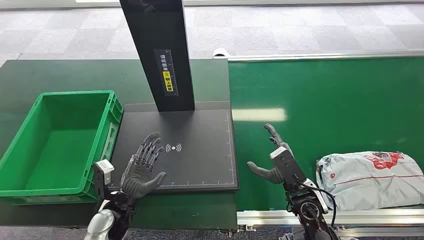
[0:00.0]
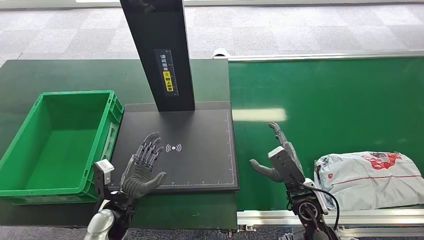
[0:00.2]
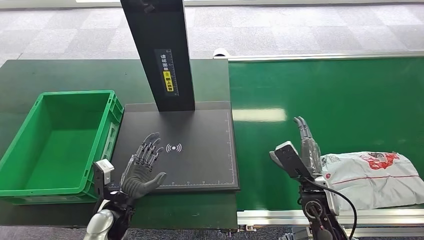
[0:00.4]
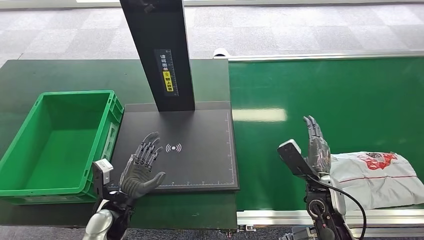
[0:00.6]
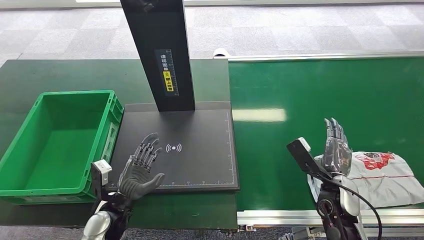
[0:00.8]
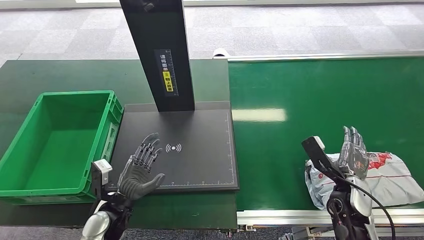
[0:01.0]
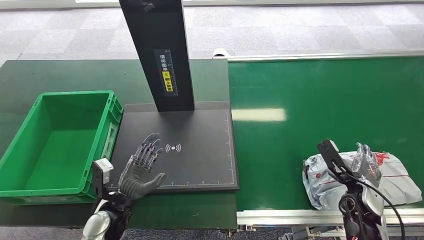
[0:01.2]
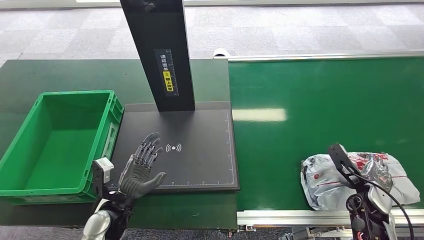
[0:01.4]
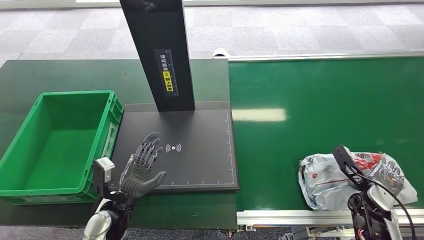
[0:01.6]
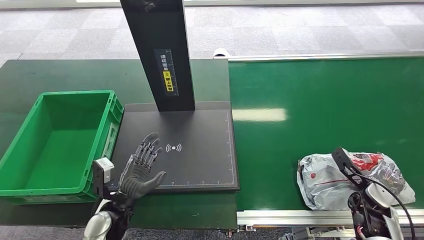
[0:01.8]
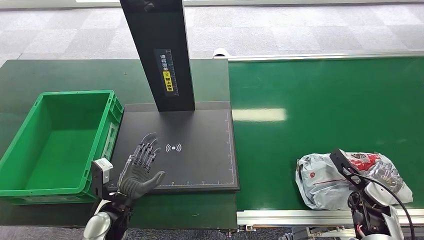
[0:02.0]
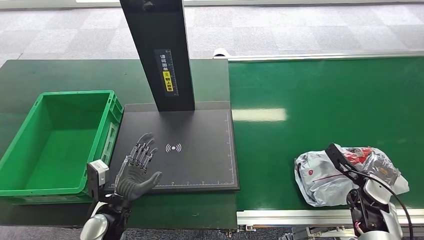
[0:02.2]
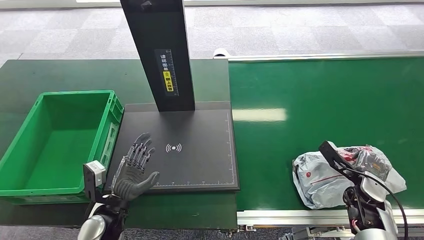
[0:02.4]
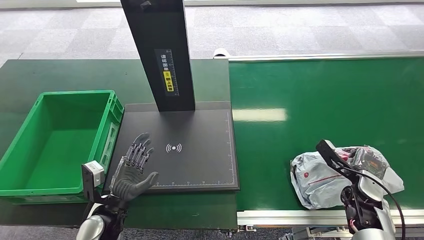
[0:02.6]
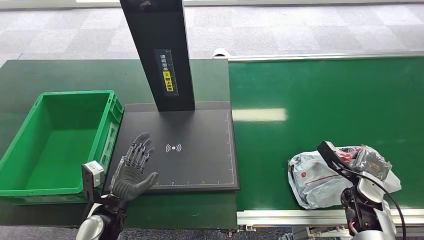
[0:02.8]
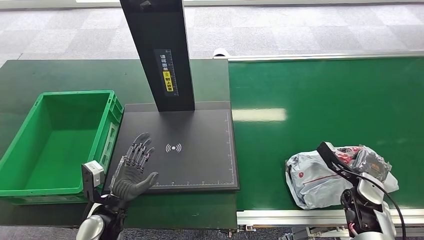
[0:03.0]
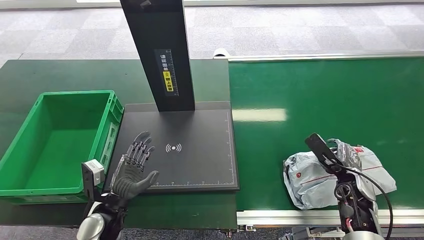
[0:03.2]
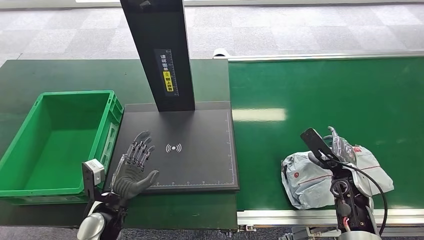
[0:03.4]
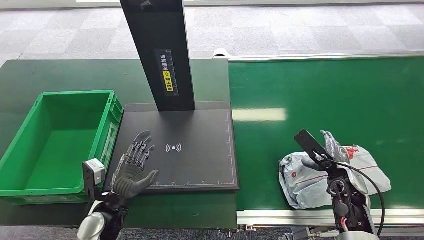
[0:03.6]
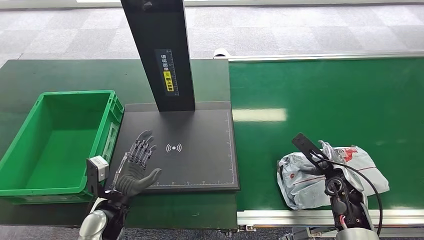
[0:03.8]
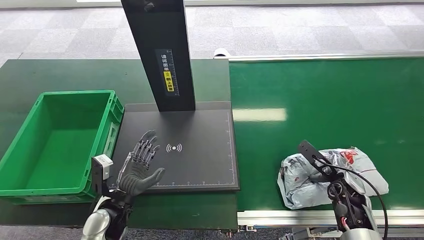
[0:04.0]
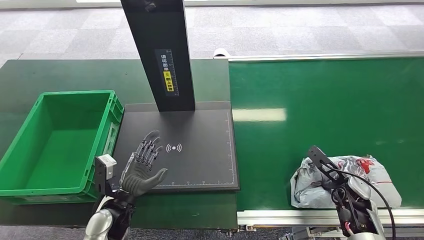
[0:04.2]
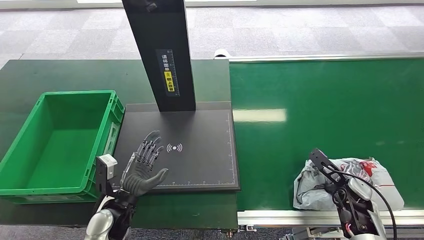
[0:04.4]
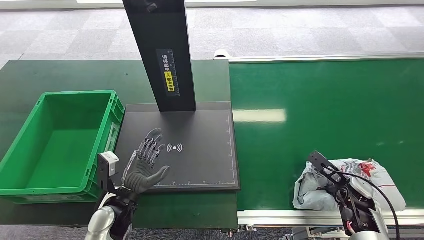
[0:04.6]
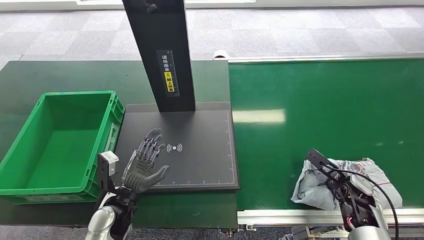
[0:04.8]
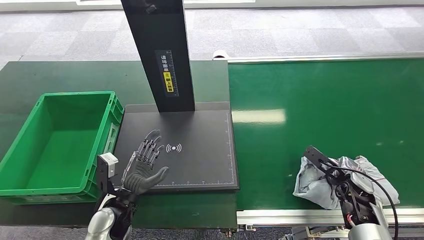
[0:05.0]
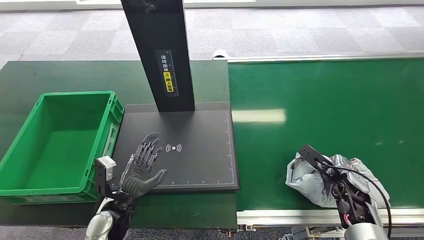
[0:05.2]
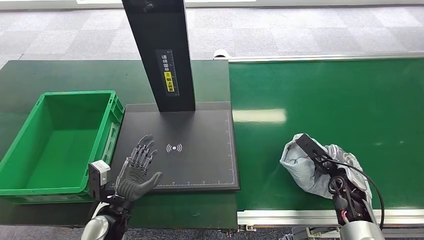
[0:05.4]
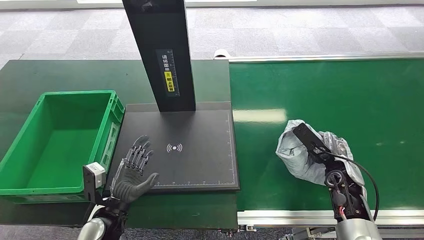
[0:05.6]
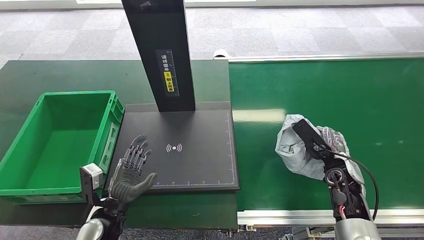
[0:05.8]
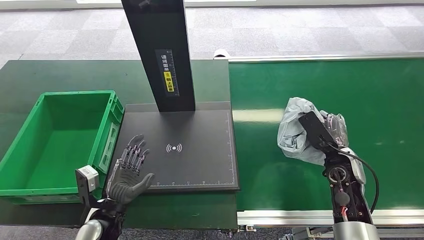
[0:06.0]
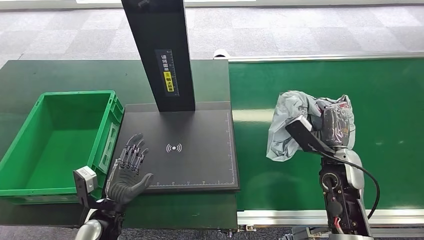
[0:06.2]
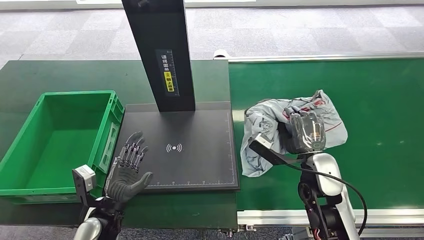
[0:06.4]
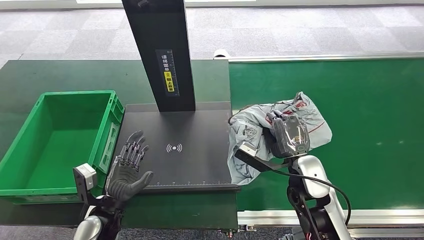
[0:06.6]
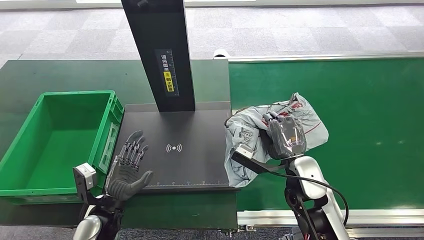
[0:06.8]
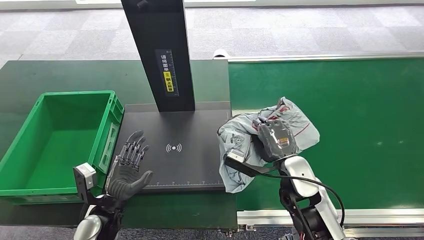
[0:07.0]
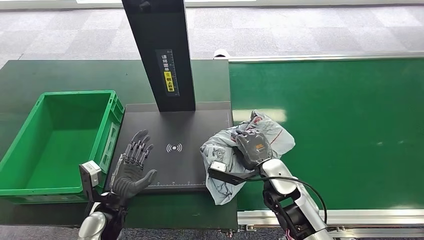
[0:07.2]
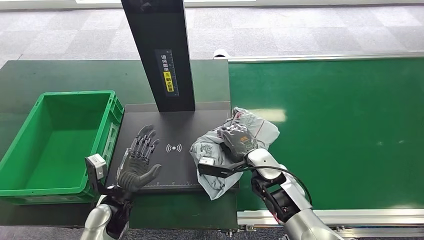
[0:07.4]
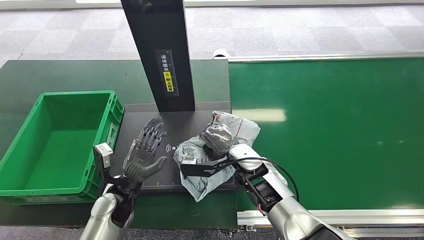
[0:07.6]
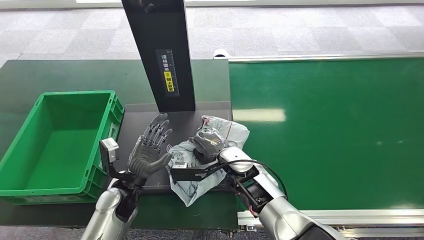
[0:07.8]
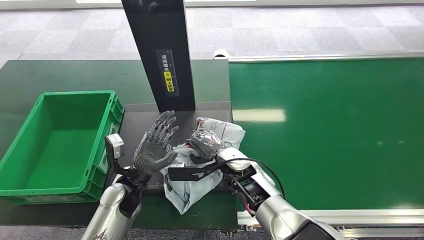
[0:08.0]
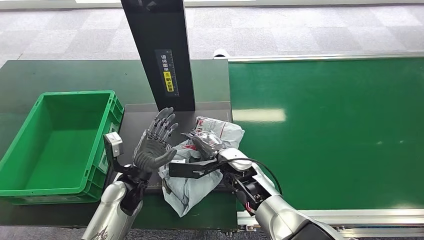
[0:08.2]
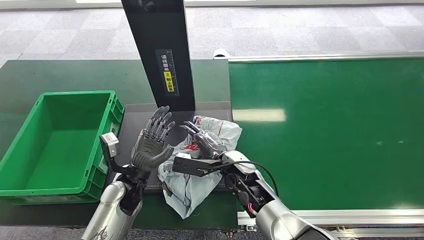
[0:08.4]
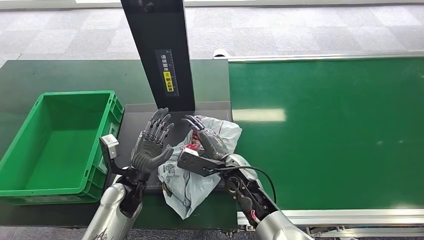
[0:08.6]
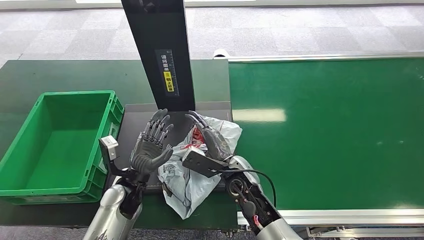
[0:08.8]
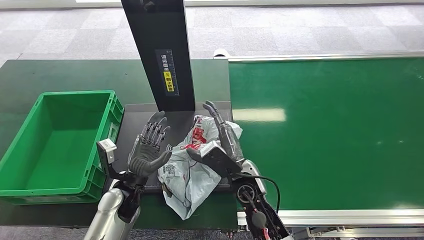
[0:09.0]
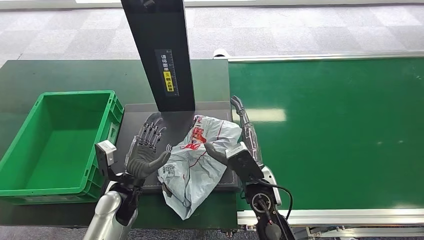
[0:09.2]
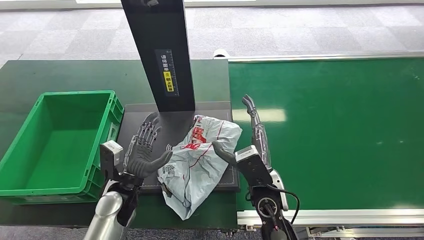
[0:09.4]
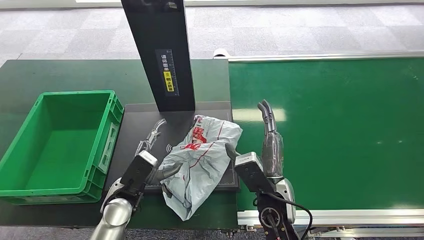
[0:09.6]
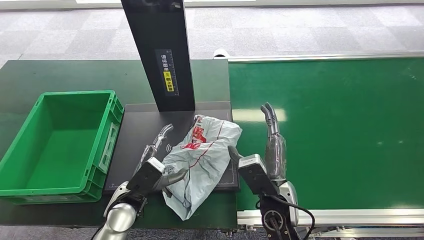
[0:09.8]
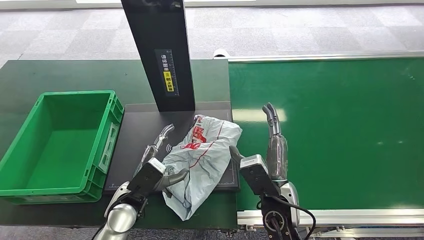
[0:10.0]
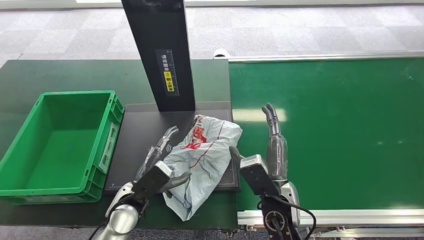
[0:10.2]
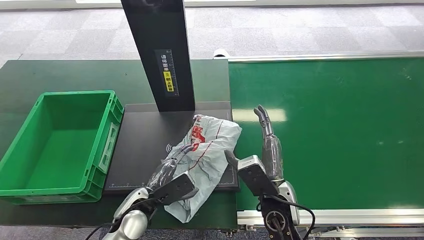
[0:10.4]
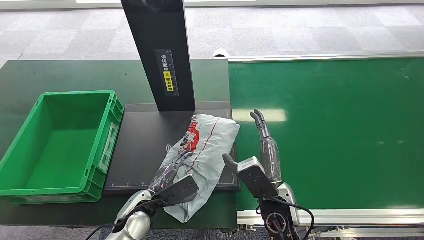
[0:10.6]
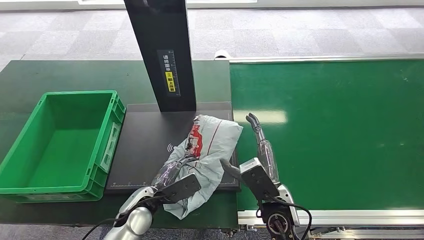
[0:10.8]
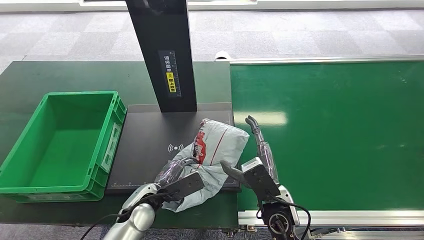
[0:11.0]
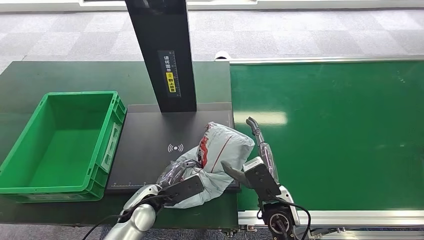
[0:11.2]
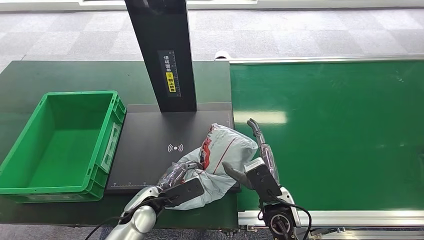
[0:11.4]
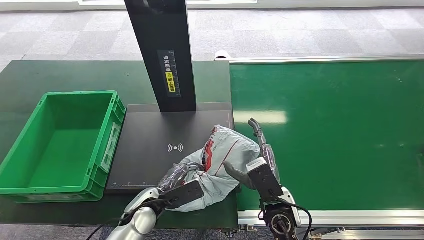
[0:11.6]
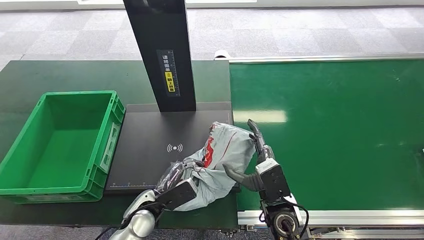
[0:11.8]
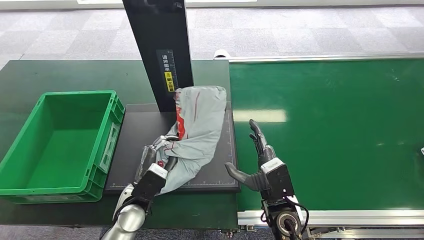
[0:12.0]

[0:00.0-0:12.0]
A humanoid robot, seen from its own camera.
Step, 0:00.0 to 0:05.8: Pick up the package from the conveyor belt.
Step, 0:06.2 to 0:08.8: Place the package onto the inbound machine.
0:01.6 to 0:03.0: The hands make only small movements.
0:04.4 to 0:06.0: The right hand shifts about 10 cm upward and to the left.
0:06.0 to 0:07.6: The right hand shifts about 25 cm to the left; the left hand moves forward, roughly 5 cm.
0:07.6 to 0:09.0: The right hand is displaced backward by roughly 5 cm.
0:09.0 to 0:10.4: The right hand heads to the right, covering about 5 cm.

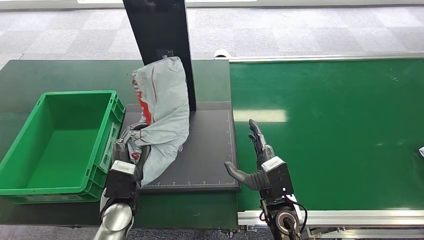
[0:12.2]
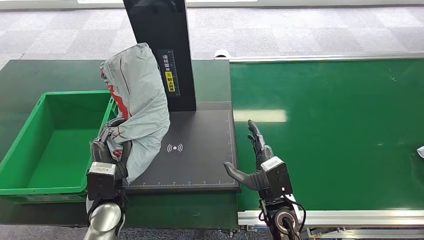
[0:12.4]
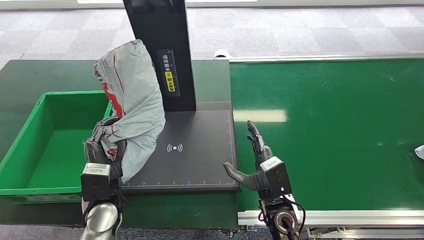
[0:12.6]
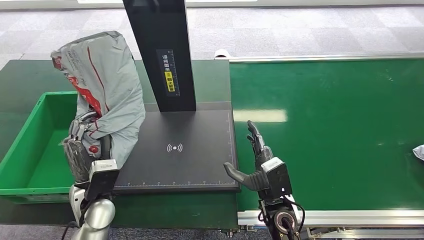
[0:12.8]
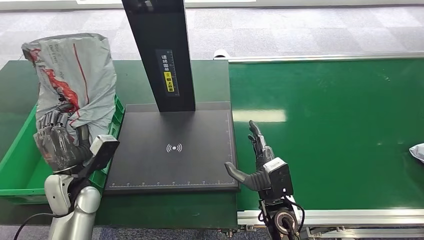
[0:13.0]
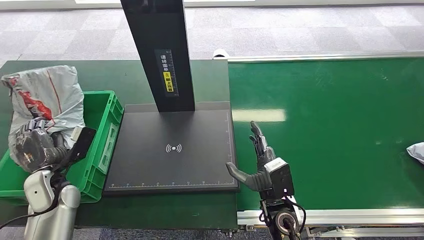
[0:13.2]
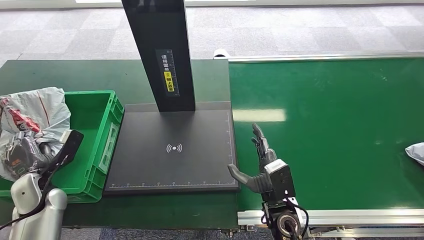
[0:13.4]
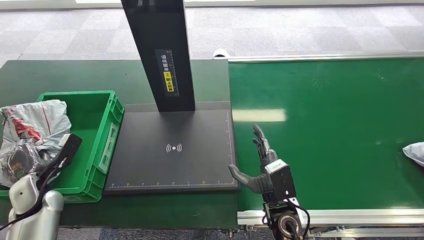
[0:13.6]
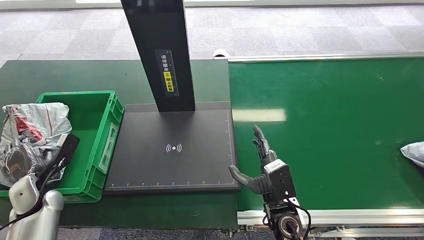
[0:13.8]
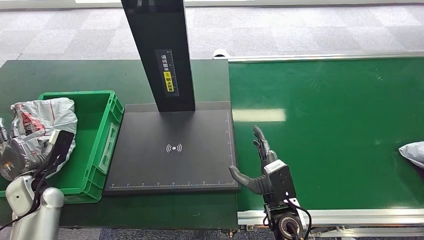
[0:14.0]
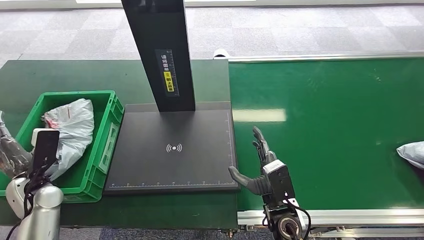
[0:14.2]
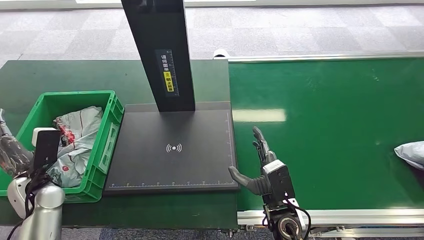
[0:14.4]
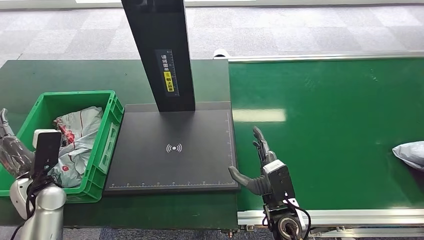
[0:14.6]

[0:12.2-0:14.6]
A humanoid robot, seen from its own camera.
Step, 0:12.6 to 0:14.6: Place the package into the parcel locker.

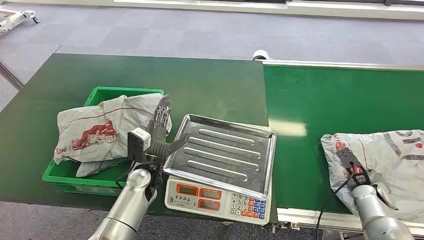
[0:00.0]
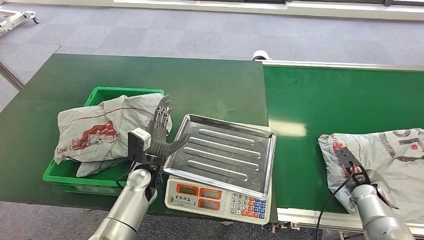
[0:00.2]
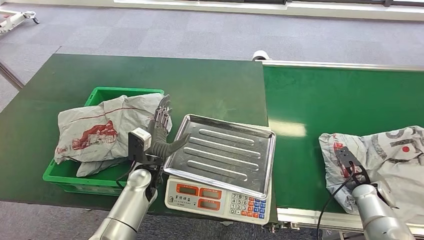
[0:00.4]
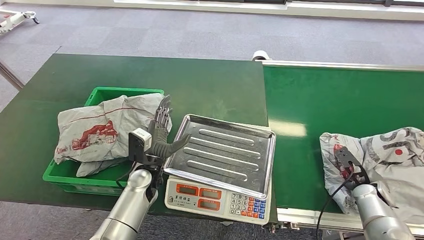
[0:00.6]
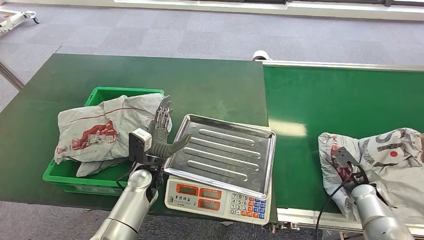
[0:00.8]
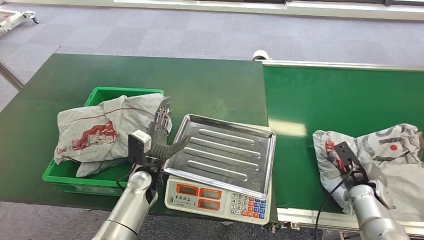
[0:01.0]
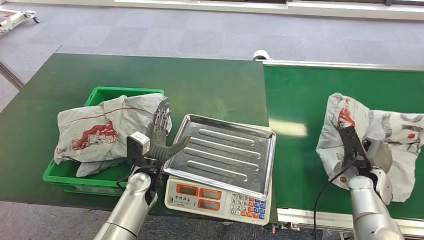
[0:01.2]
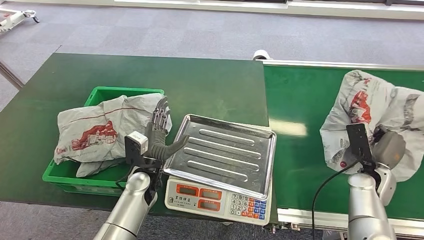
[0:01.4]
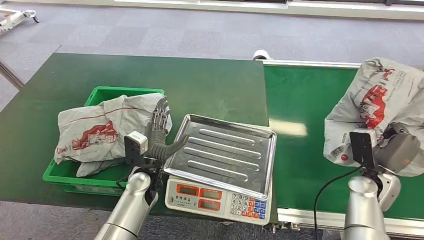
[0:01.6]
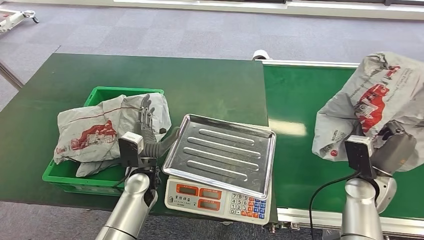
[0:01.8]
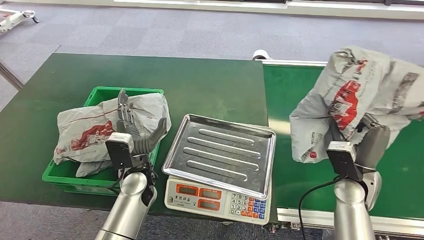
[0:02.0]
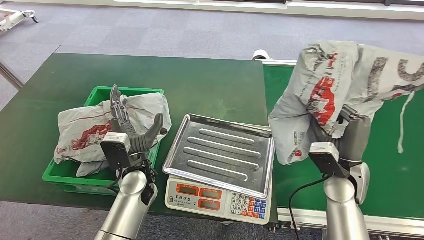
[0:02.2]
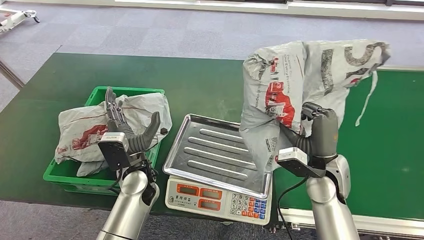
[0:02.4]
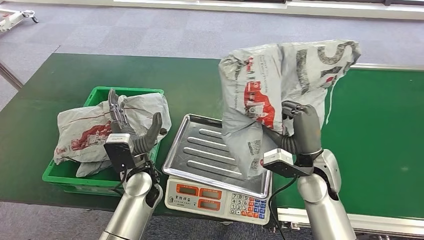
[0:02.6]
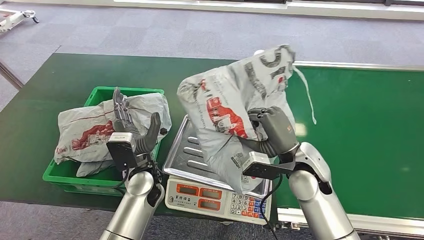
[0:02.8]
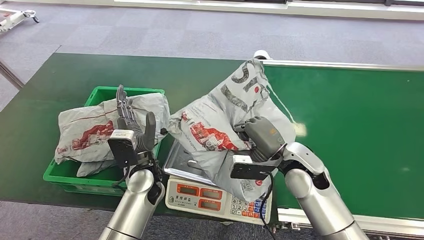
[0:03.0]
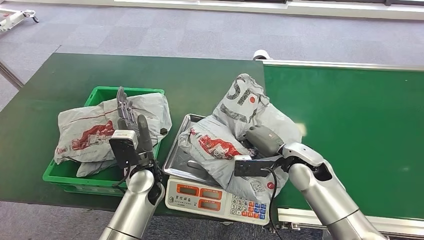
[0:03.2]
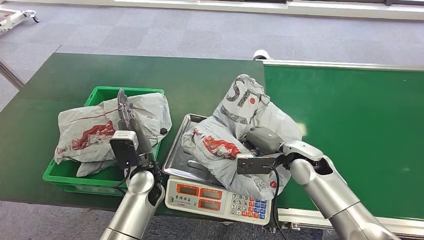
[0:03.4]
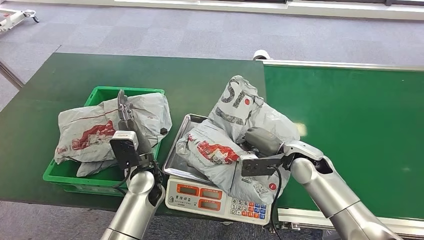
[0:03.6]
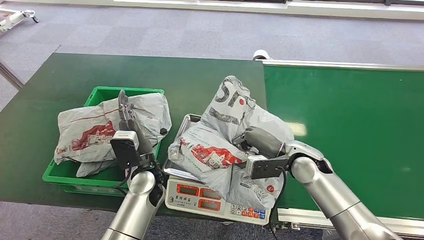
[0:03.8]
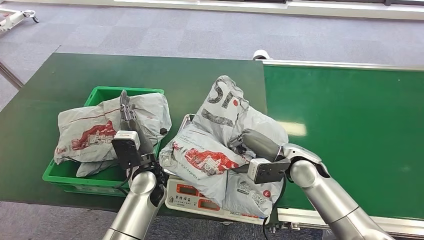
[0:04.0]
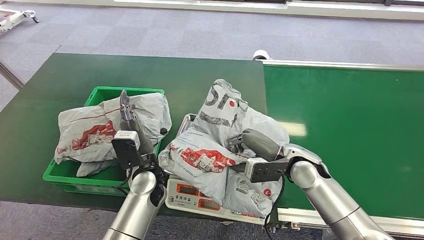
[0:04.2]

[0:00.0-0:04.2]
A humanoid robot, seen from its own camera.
Step, 0:00.0 to 0:01.8: Pick up the package from the conveyor belt.
